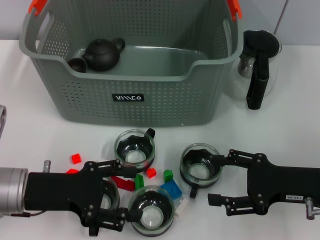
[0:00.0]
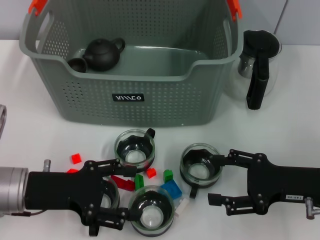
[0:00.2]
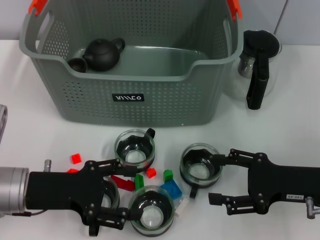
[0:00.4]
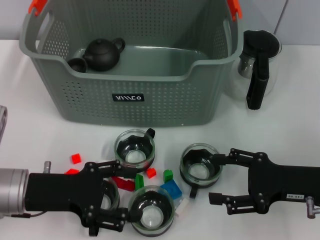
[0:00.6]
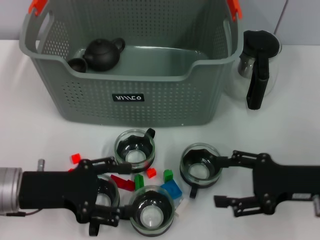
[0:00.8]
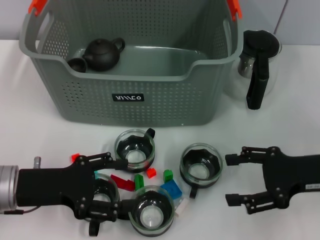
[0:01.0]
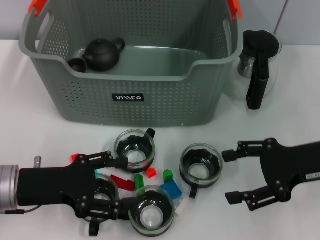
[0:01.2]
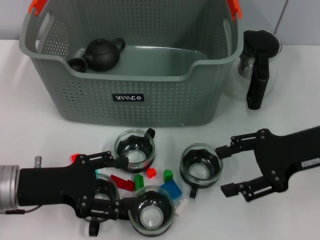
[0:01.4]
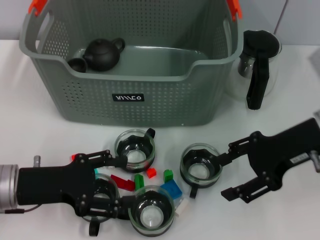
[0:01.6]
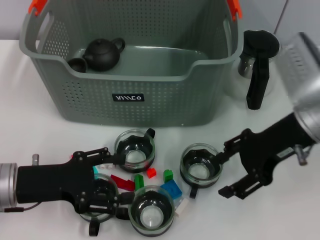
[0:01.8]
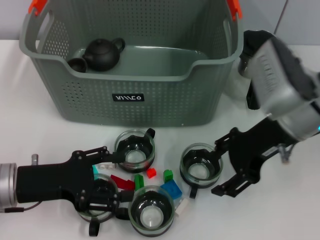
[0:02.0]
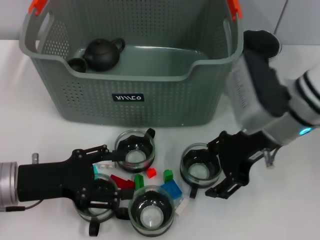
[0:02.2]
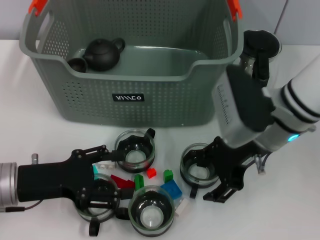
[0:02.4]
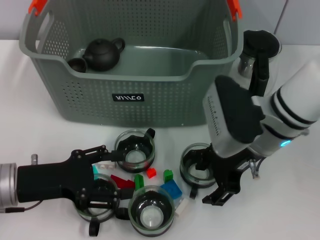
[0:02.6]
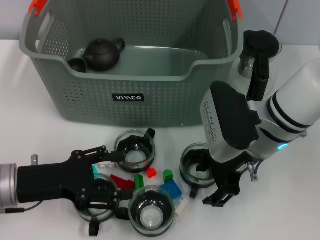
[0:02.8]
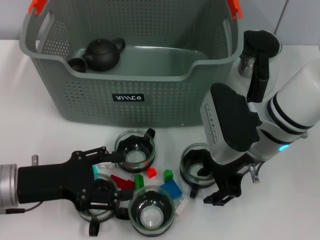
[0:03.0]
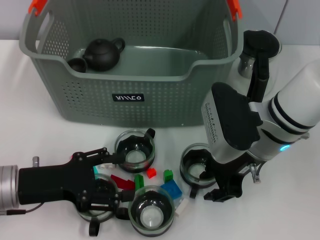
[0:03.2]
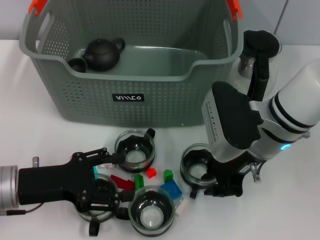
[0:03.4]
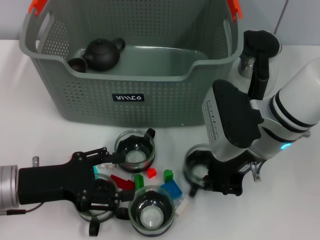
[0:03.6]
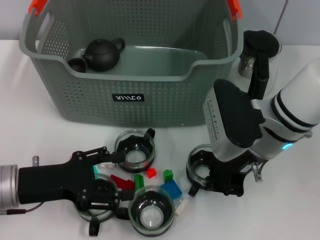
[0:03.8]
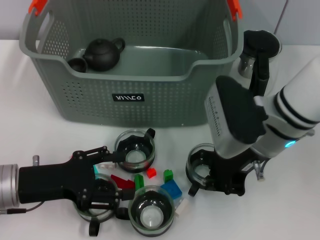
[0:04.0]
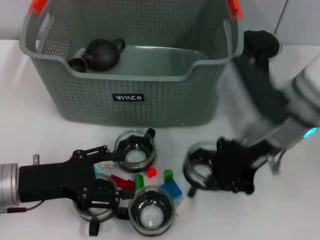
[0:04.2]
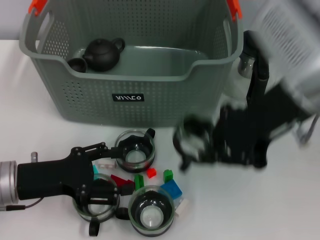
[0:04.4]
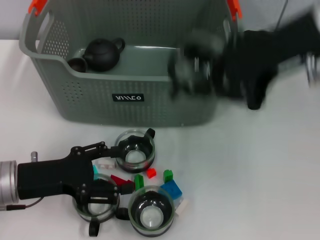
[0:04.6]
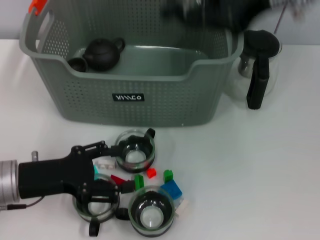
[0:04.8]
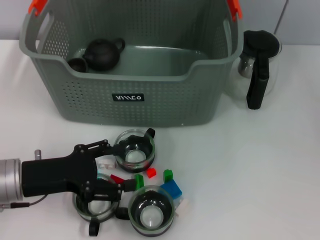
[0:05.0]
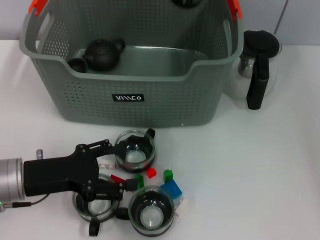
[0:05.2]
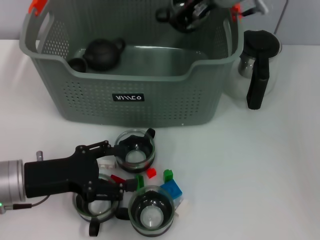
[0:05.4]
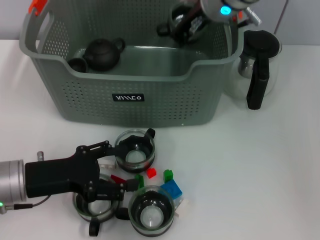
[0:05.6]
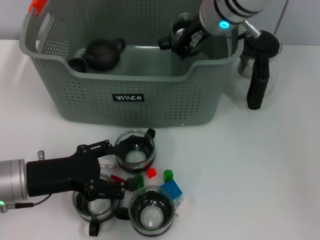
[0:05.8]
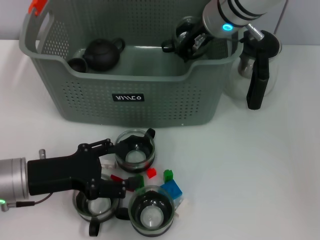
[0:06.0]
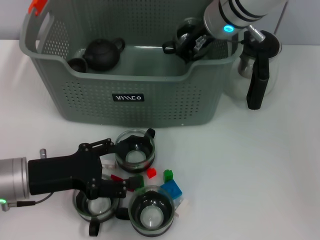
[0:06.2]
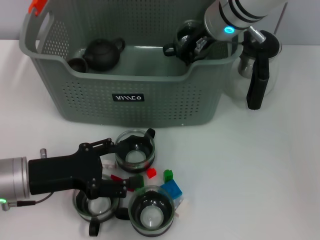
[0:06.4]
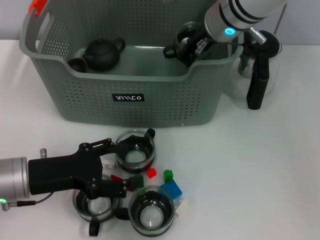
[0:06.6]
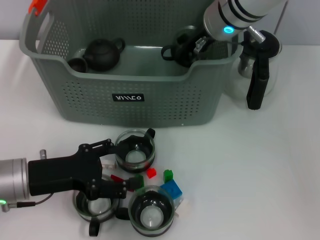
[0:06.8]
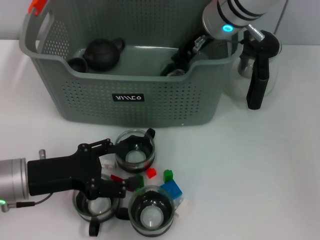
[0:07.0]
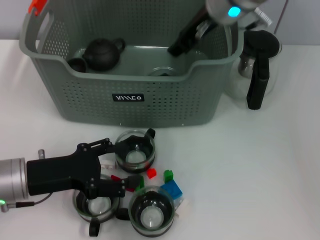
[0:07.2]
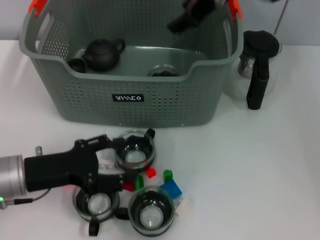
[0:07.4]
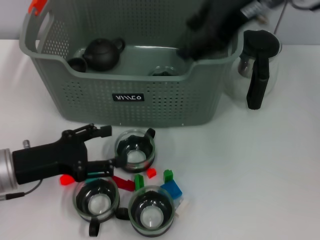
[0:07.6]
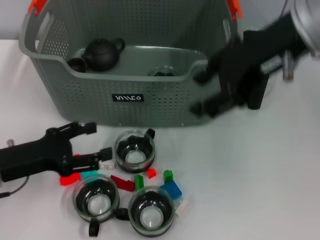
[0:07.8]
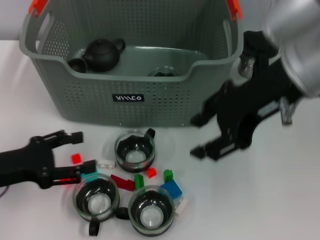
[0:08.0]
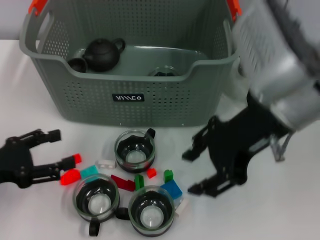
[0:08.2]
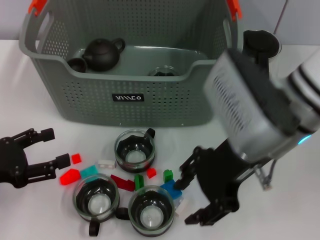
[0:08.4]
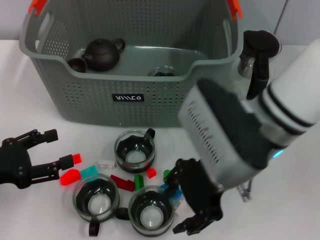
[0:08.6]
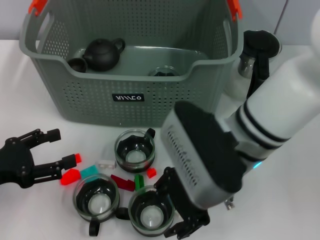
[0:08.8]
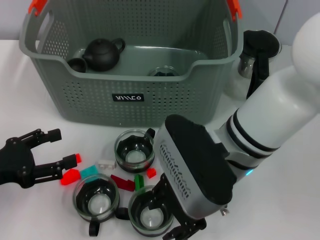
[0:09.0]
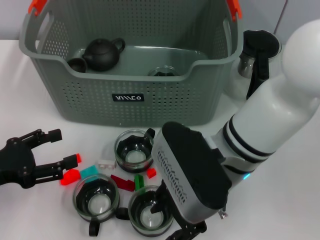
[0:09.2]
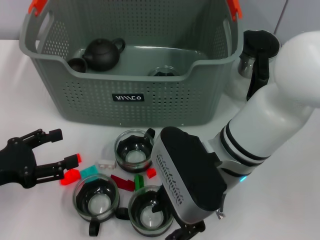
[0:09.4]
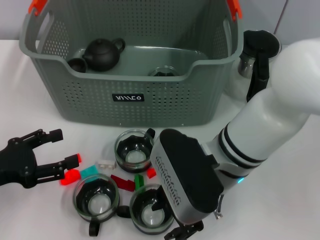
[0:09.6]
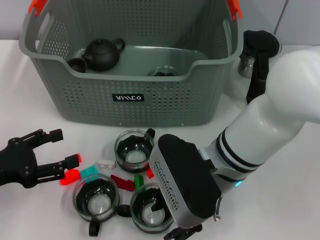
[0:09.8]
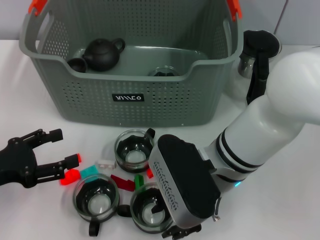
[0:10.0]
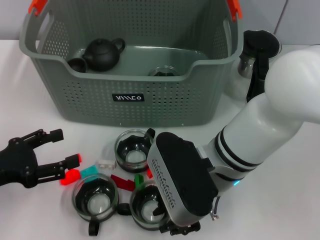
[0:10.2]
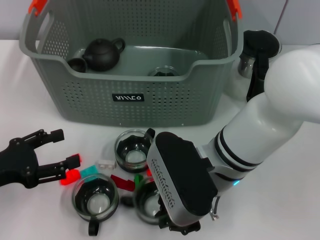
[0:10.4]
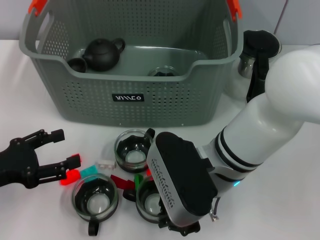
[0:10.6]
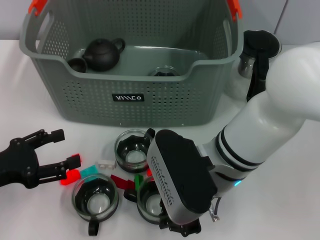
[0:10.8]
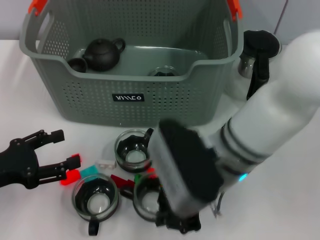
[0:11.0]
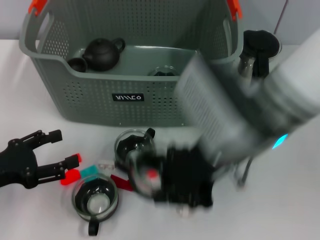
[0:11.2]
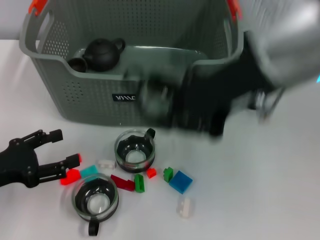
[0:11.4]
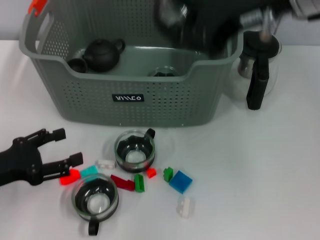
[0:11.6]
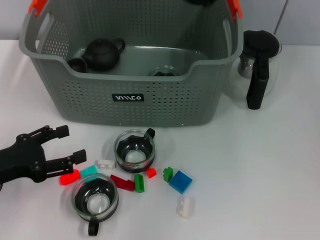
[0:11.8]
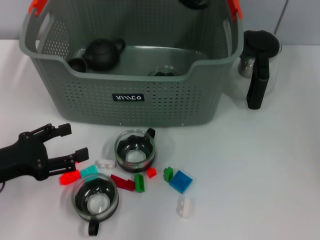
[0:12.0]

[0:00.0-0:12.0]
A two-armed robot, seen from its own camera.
Task of the whole recording: pick up the teacup on the table and place it into the storage bin, pick up the block on the table and place it into the storage bin.
Step, 0:00.0 to 0:03.6: Grasp the cup with right gripper.
Step, 0:03.8 to 0:07.0: Place the cup in the storage box with right gripper.
Step, 0:07.2 to 0:10.2: Grasp the cup with right gripper.
0:00.0 to 0:01.6: The right gripper is displaced upward and forward by roughly 10 cm.
0:01.6 to 0:03.0: The right gripper moves to the left, about 10 cm.
0:03.0 to 0:04.4: The right gripper moves upward, about 10 cm, and closes.
0:04.4 to 0:06.0: The right gripper is displaced forward and to the left by about 15 cm.
0:06.0 to 0:07.6: The right gripper travels upward, backward and to the right by some 15 cm, and opens up.
0:07.6 to 0:09.0: The left gripper moves to the left, approximately 5 cm. Meanwhile the right gripper shifts some 20 cm downward and backward.
0:09.0 to 0:10.4: The grippers move only a little.
0:10.4 to 0:12.0: The right gripper travels upward and forward by approximately 25 cm, and closes its fingers.

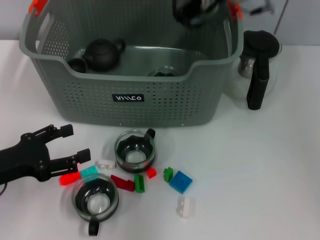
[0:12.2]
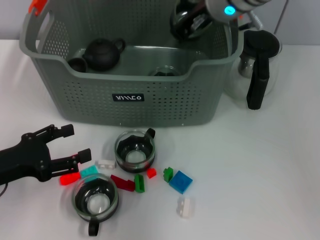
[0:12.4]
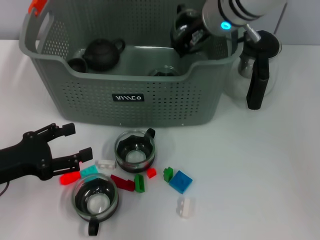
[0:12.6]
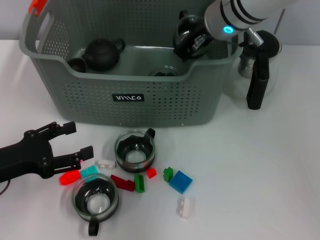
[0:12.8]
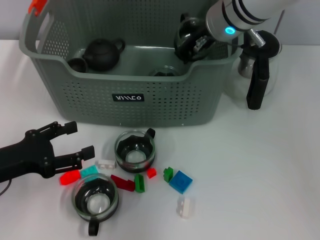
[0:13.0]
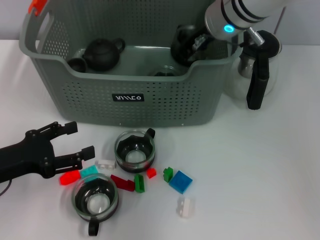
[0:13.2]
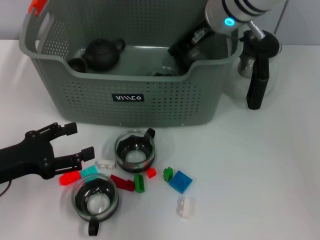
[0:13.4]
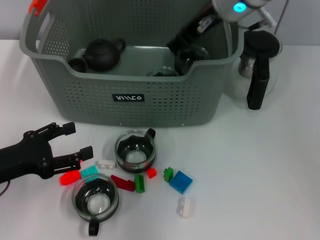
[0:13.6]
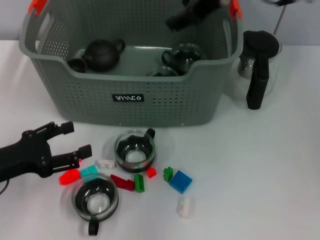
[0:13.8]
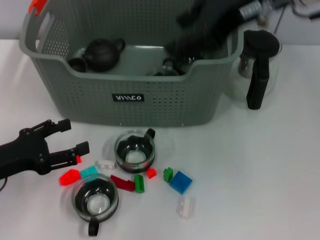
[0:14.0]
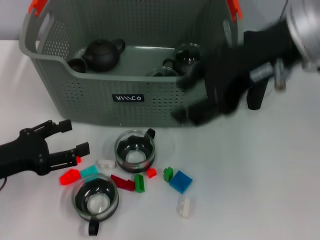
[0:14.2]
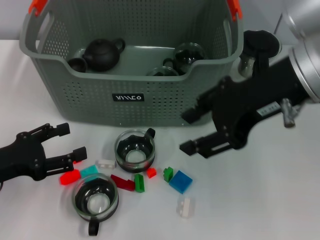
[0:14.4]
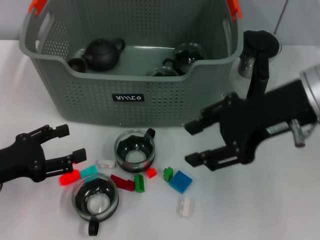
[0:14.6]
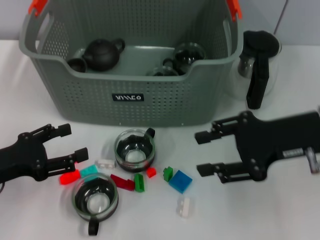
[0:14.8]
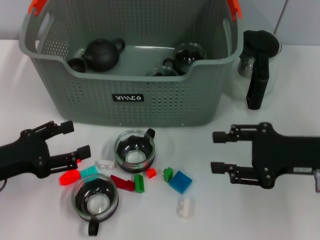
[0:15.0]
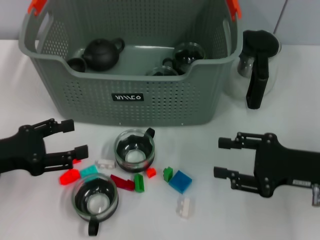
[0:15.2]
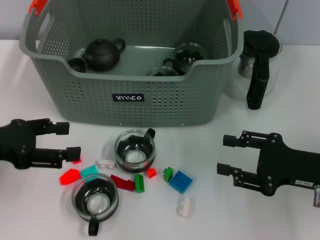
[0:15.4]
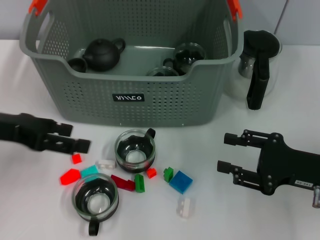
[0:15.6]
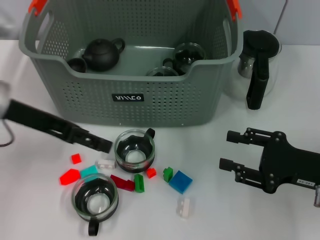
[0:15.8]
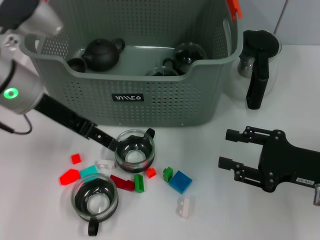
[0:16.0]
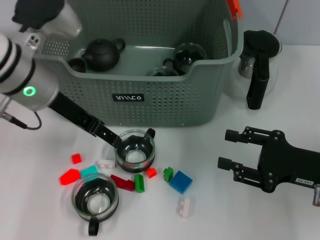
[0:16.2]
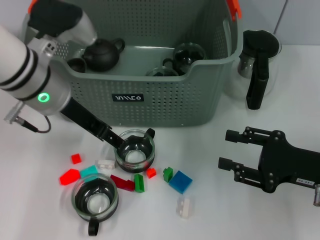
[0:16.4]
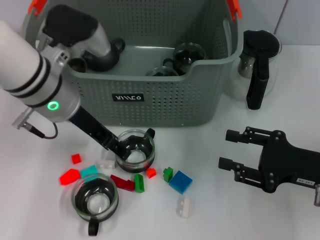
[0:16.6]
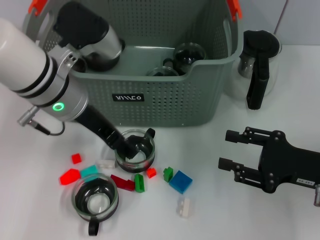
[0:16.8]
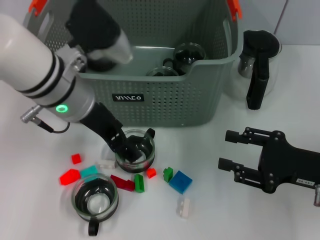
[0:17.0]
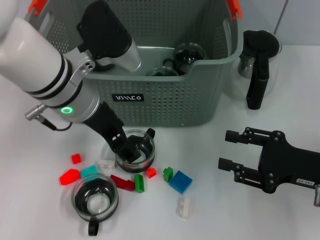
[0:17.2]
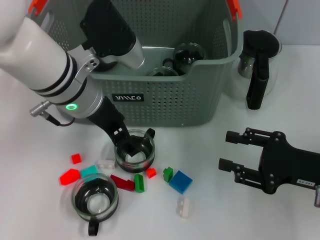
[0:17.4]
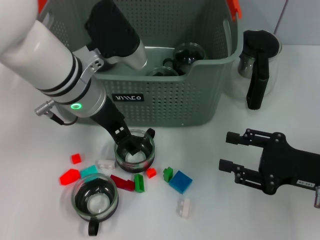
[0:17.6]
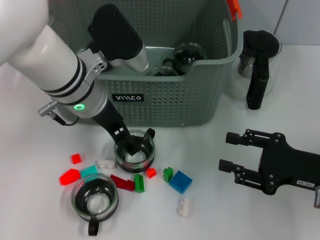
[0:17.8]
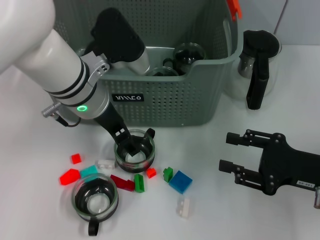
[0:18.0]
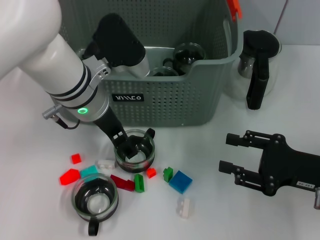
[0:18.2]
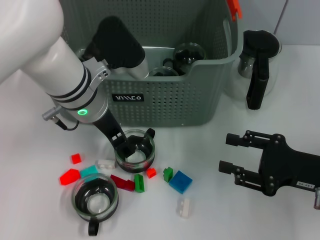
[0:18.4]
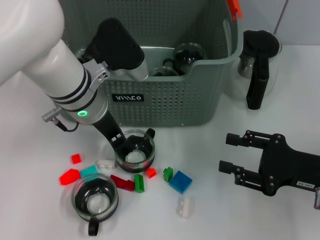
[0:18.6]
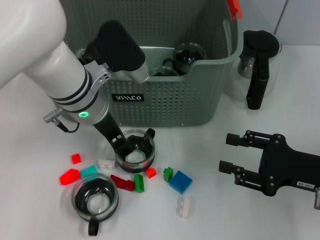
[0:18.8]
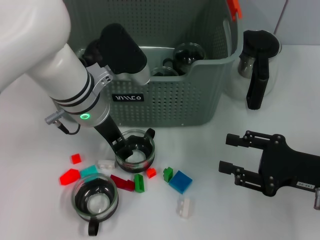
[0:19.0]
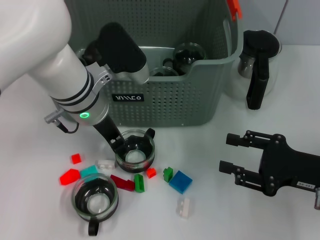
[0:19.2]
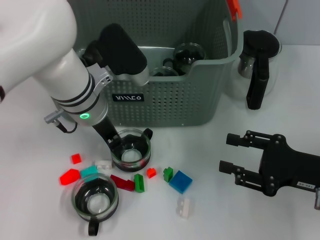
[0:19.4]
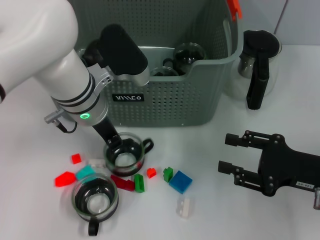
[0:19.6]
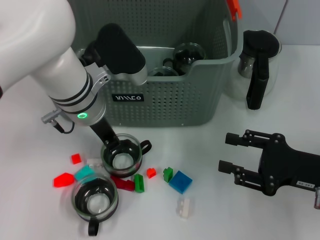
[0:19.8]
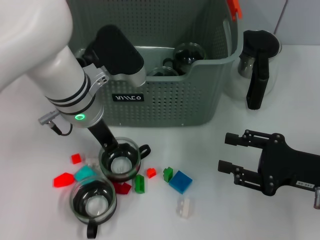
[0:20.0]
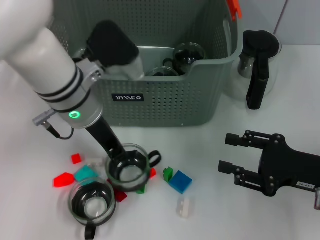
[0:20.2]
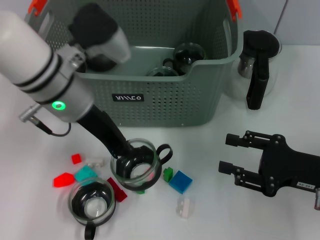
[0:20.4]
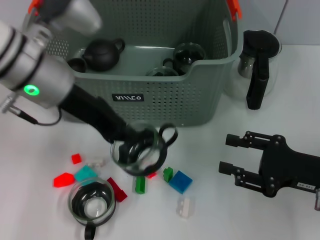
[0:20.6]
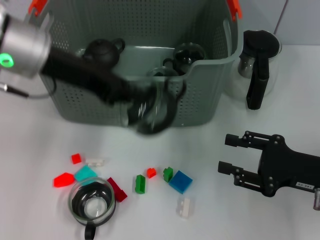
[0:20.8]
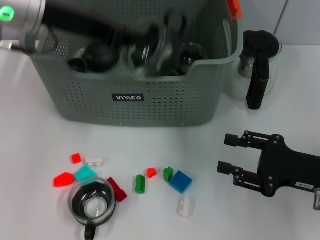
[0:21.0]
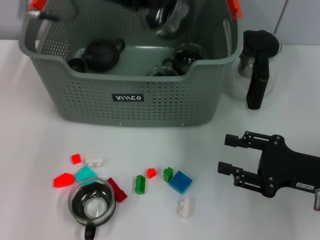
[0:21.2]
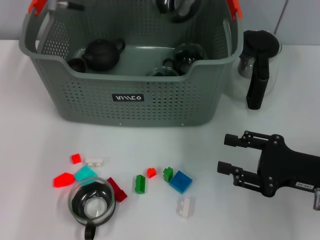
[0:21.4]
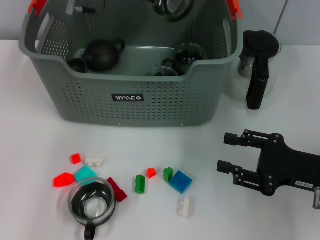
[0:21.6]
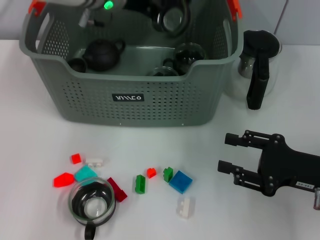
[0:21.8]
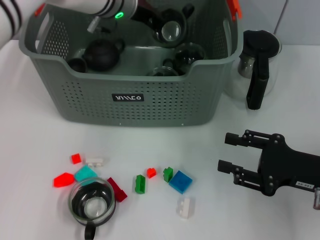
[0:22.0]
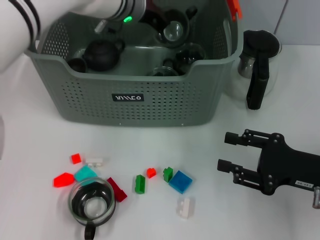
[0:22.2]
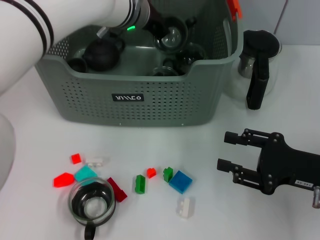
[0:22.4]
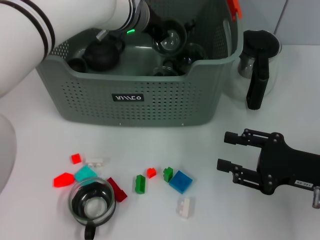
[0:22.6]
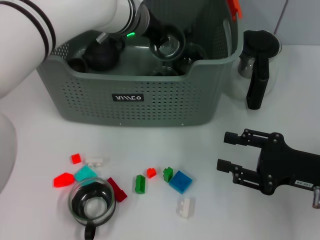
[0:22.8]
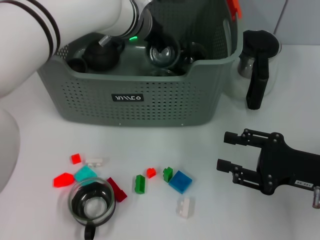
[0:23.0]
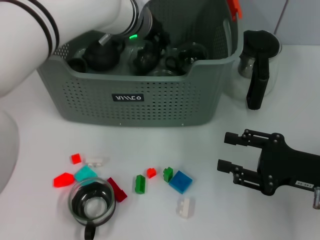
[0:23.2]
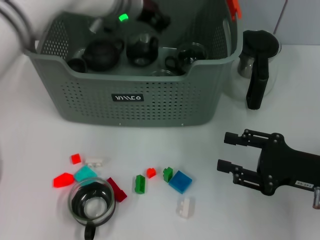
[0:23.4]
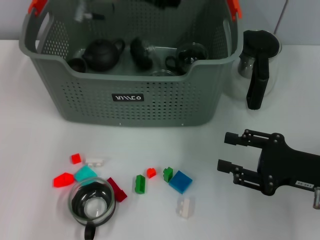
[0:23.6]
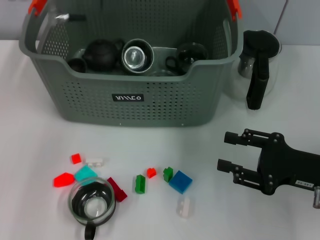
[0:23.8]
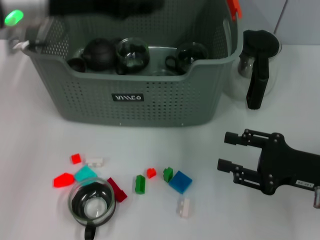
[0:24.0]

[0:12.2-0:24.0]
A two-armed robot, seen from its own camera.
Task of the whole recording: pick up the teacup on the table and place it into the storage bin, pick up the block on the table and place it into the storage bin.
Step, 0:13.8 to 0:19.8: Grasp the cup with left gripper.
Step, 0:20.2 to 0:23.4: Place the cup in the storage box with left gripper.
0:12.2 to 0:13.6: The right gripper opens its fingers.
0:13.6 to 0:15.2: The right gripper goes about 30 cm backward, to the right and downward.
0:15.2 to 0:16.6: The left gripper is displaced to the right, forward and upward by approximately 20 cm.
0:18.2 to 0:19.6: The left gripper closes up.
0:19.6 to 0:21.0: The left gripper is displaced upward and to the left by about 15 cm.
0:21.0 to 0:22.6: The left gripper travels to the right, forward and downward by roughly 20 cm.
0:22.6 to 0:24.0: The left gripper heads to the left, backward and upward, covering approximately 20 cm, and opens its fingers.
